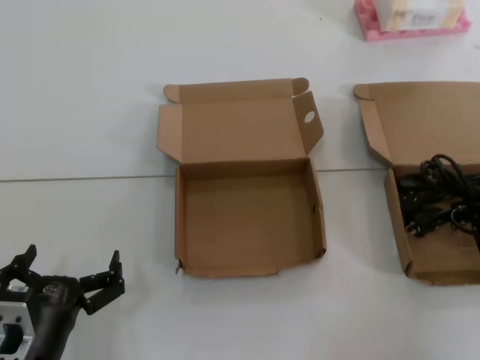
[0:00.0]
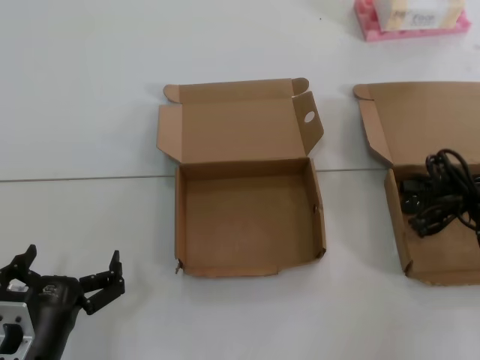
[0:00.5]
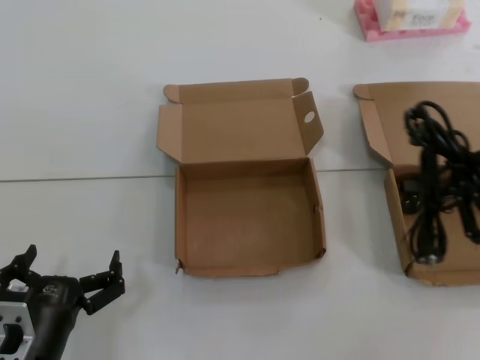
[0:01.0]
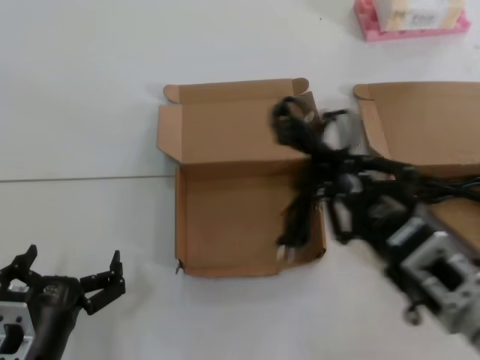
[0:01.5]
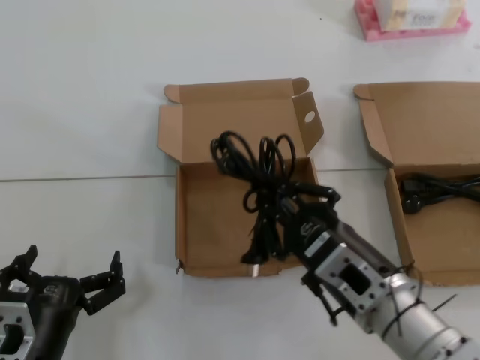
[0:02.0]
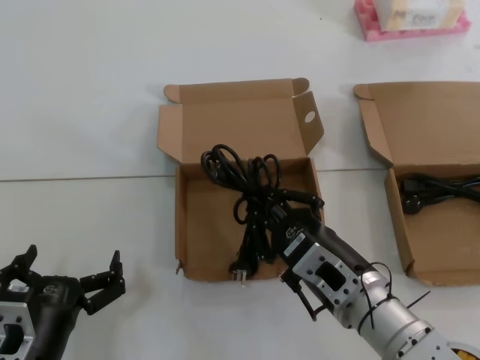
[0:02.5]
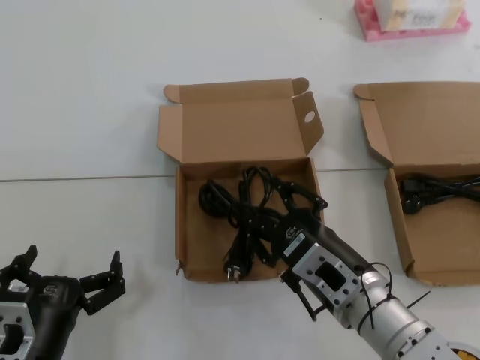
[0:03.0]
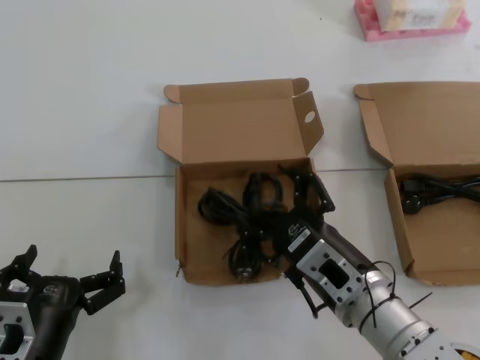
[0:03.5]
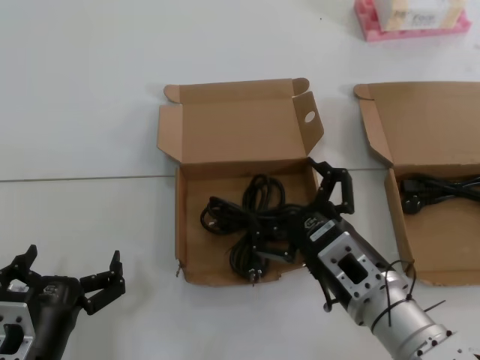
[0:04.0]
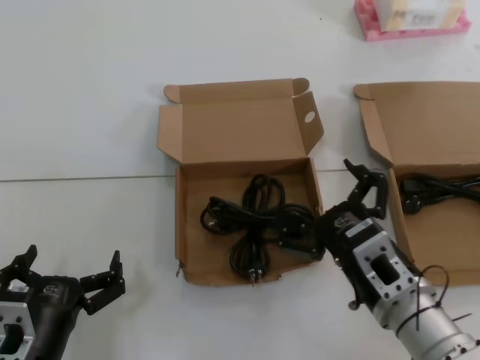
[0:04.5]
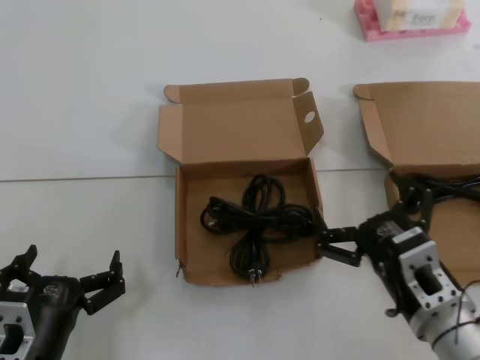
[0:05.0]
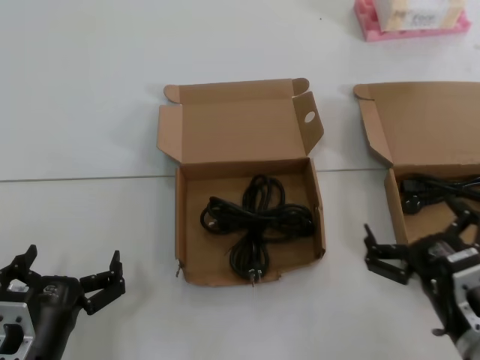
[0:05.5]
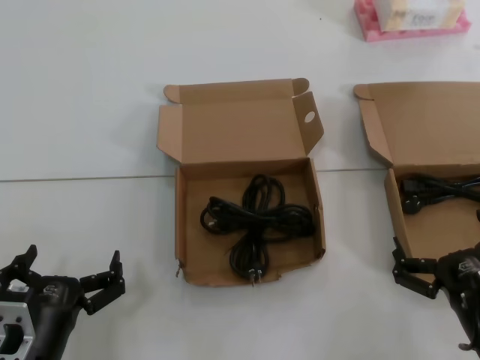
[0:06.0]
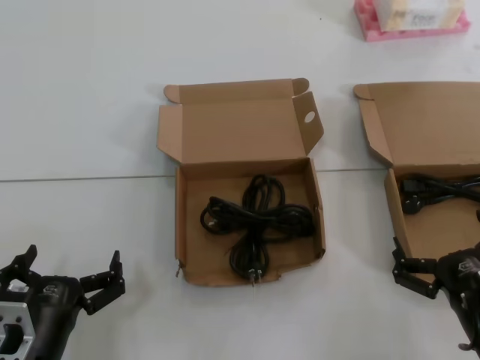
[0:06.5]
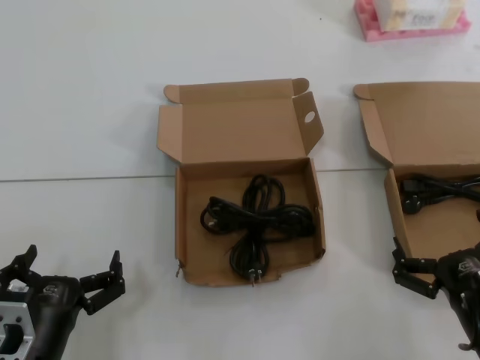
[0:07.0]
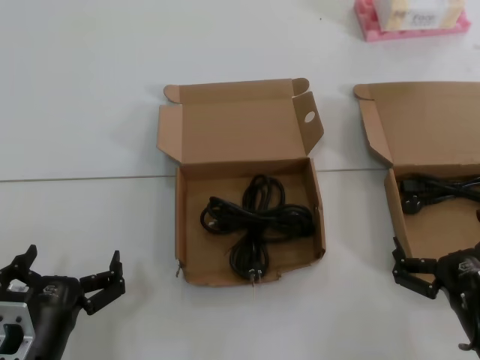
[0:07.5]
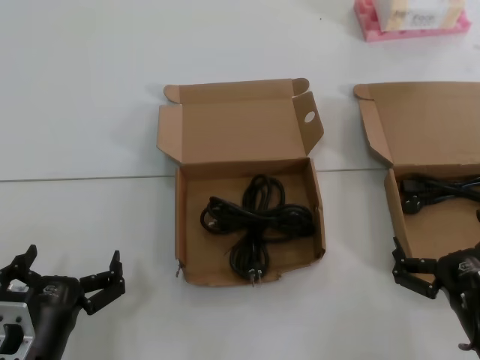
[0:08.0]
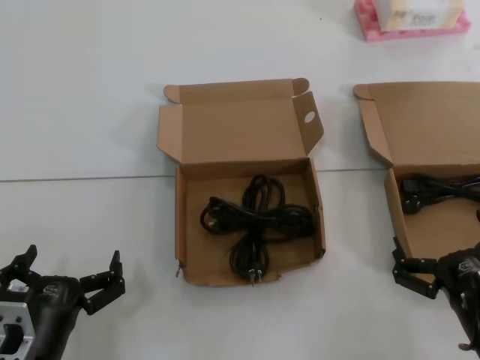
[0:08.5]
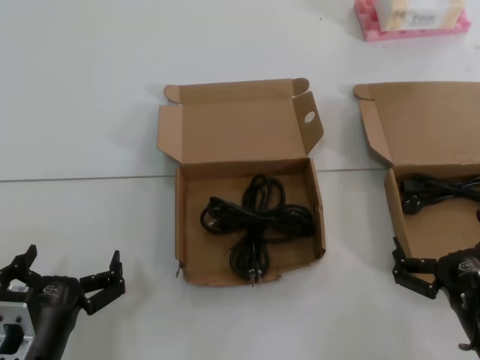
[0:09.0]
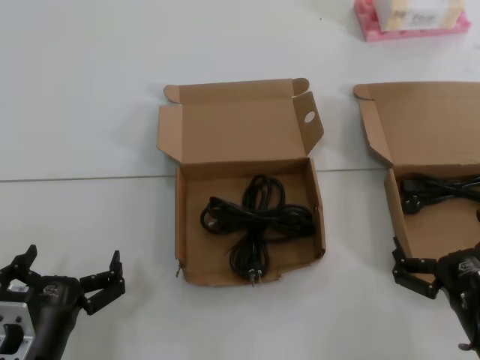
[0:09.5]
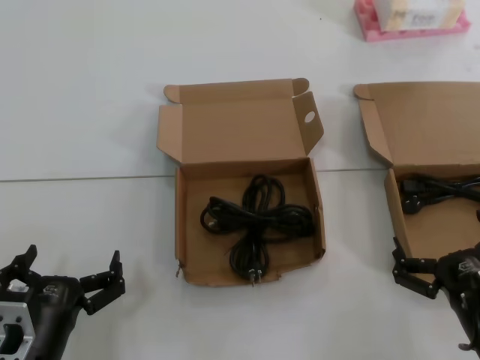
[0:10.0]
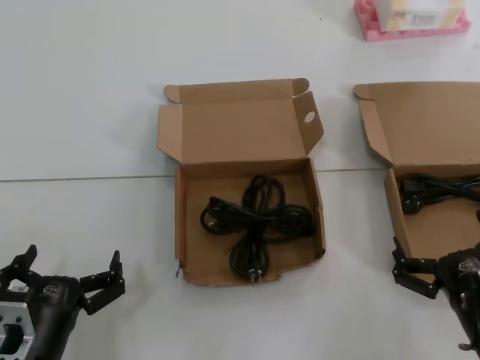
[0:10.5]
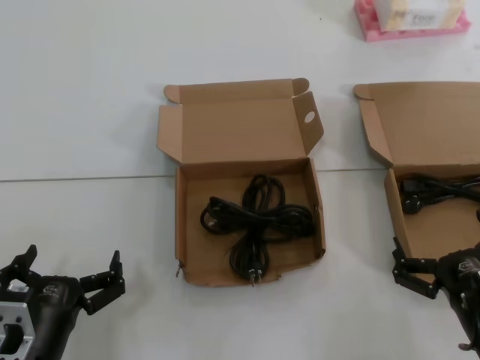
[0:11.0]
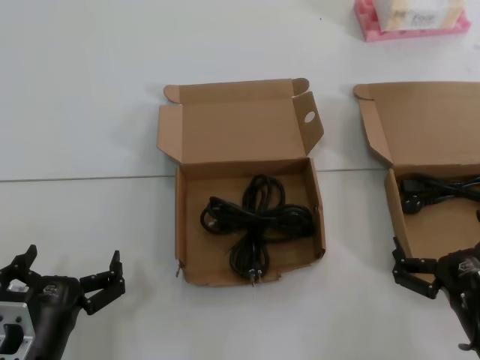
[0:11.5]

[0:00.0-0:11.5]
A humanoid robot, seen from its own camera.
Task of the whole recording: take the parts from the box containing them and put them into an empty box.
Step, 0:00.0 to 0:02.5: Place the data cable in the another box.
0:00.0 to 0:02.0: The right hand travels to the left by about 20 cm.
0:02.0 to 0:04.0: The hands move only a little.
0:04.0 to 0:06.0: The right hand is displaced to the right and backward by some 15 cm.
0:06.0 to 0:11.5: Both hands stay put.
